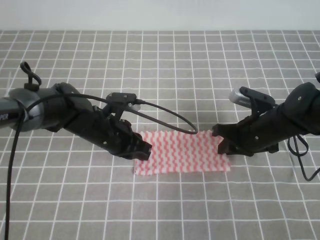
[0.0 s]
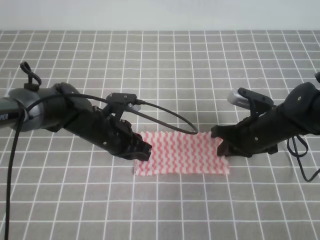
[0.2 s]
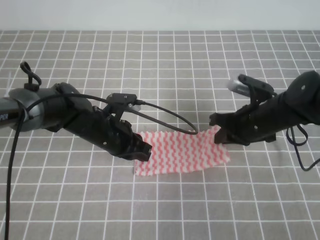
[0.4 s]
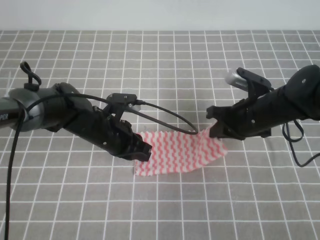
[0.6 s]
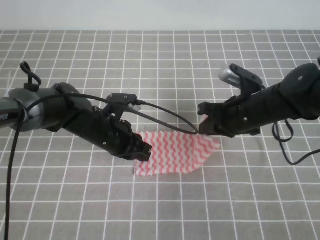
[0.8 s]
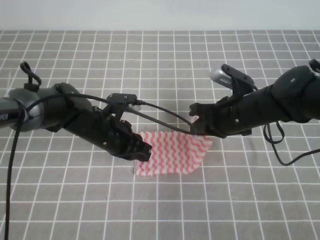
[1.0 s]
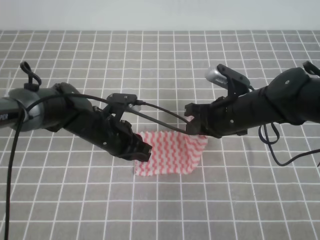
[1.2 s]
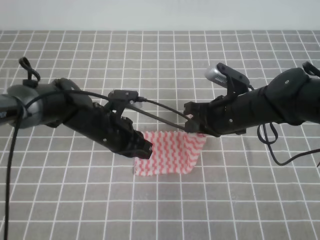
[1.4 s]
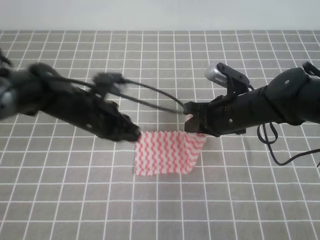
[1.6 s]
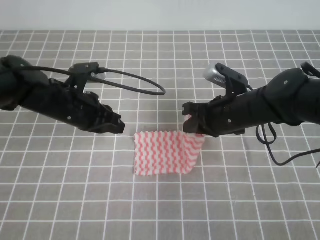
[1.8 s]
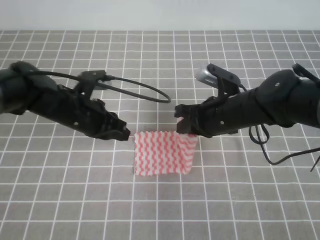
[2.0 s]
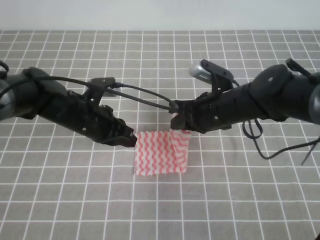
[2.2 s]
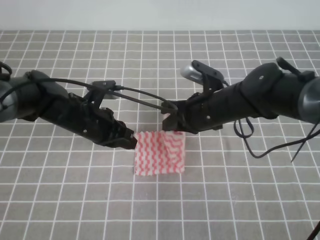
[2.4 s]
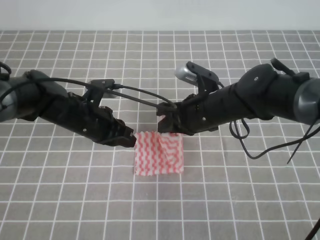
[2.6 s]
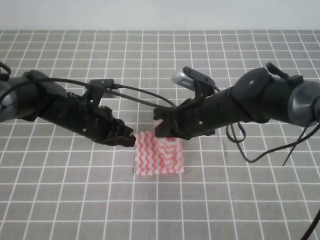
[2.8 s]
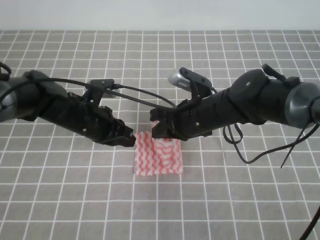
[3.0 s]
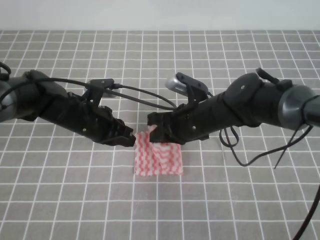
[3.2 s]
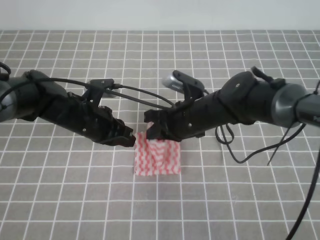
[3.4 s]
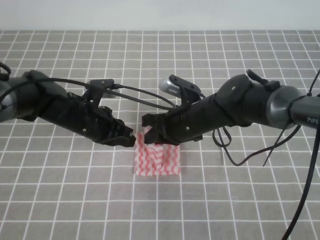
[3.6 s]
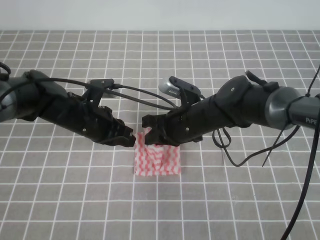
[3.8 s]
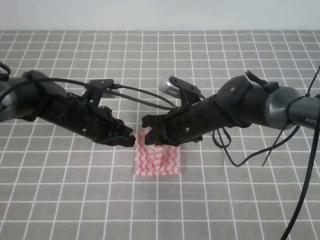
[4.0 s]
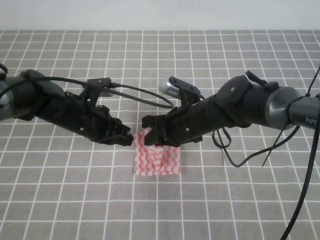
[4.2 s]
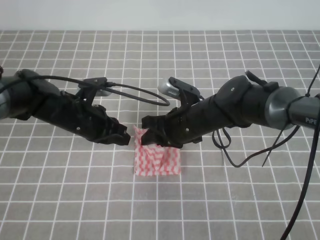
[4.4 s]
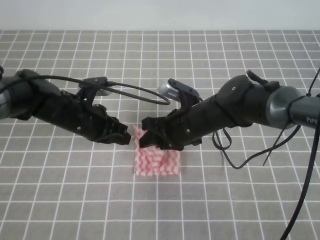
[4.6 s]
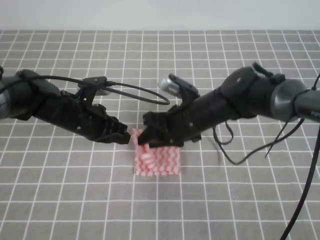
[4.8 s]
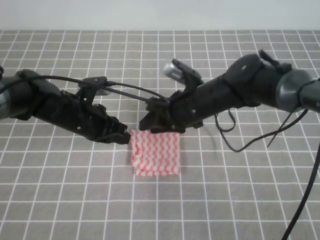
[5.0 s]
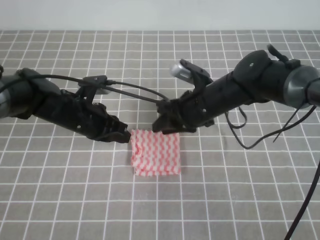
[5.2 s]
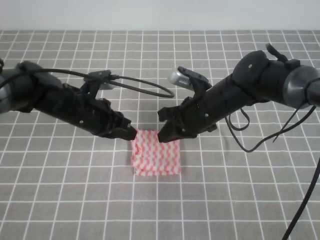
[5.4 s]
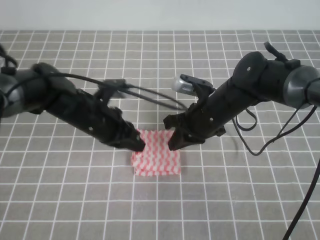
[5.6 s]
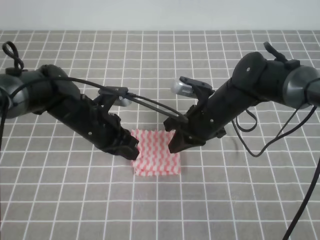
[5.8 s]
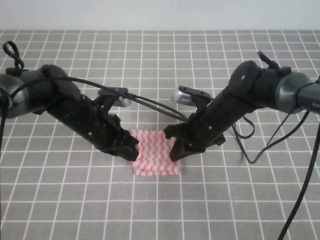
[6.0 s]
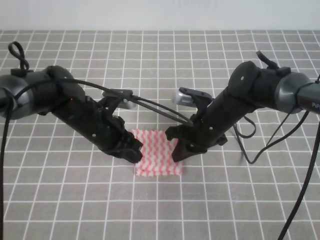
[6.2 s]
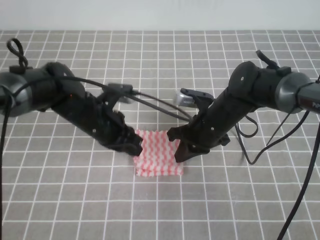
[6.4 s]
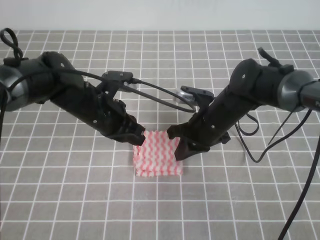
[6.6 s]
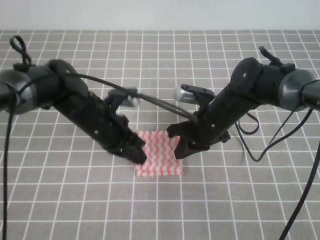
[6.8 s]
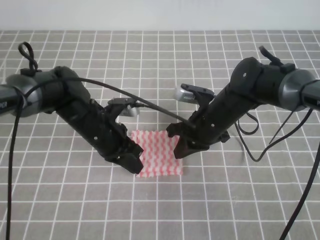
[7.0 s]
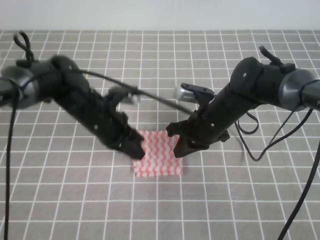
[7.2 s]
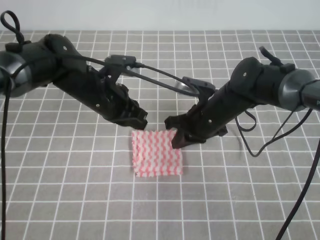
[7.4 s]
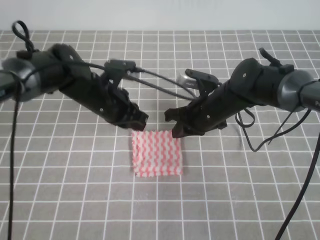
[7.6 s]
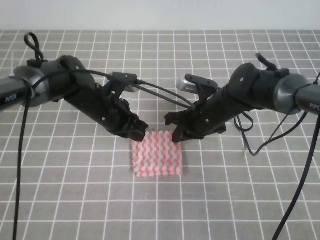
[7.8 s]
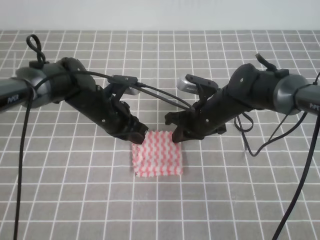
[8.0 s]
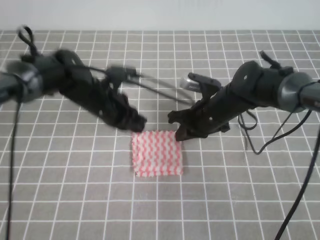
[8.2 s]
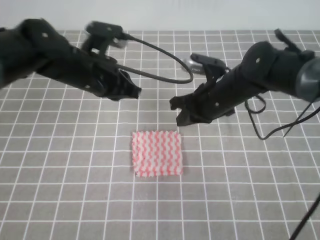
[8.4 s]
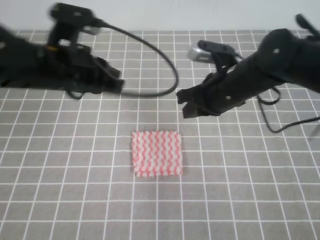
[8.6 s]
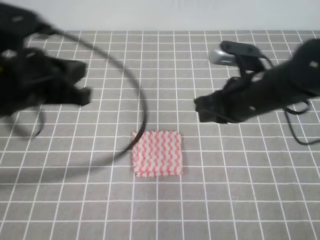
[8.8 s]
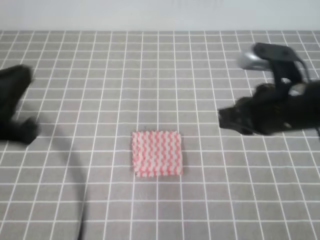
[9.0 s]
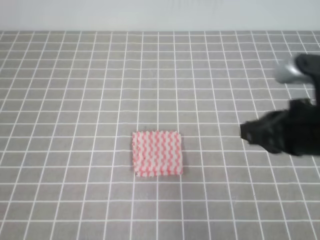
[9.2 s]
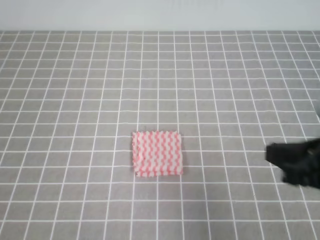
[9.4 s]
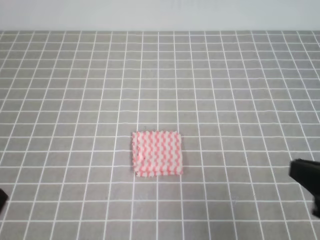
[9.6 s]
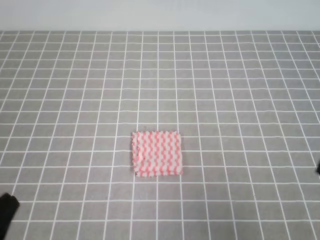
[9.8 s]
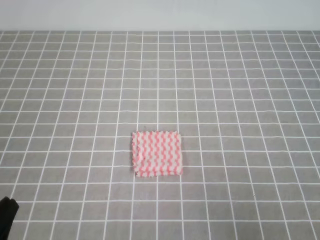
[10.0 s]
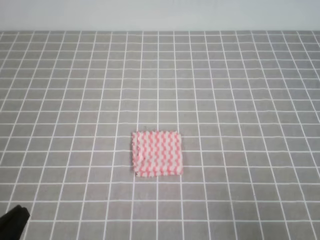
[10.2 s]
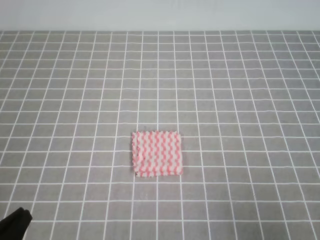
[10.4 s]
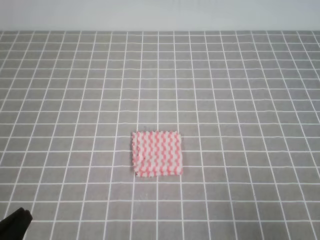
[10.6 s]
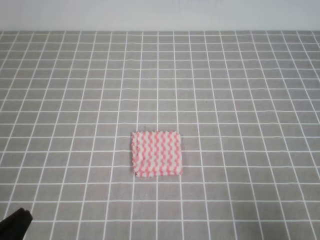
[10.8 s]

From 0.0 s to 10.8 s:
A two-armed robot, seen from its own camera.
From 0.0 s to 1.6 s: The right gripper moves roughly 5 cm.
From 1.6 s to 3.0 s: The right gripper heads to the left, covering approximately 5 cm.
From 3.0 s to 4.6 s: The right gripper opens.
From 4.6 s to 6.2 s: The right gripper closes.
From 7.8 s to 9.2 s: The right gripper heads backward, upward and to the right, covering some 25 cm. The left gripper is displaced backward, upward and to the left by about 35 cm.
From 9.2 s to 10.8 s: The right gripper heads backward, to the right and downward, covering about 20 cm. Meanwhile the left gripper goes roughly 15 cm downward.

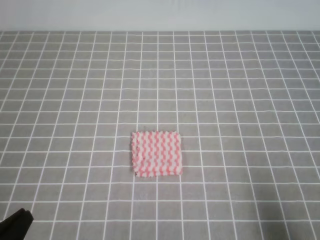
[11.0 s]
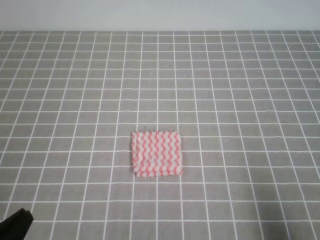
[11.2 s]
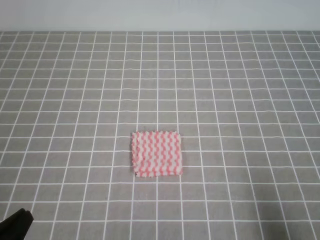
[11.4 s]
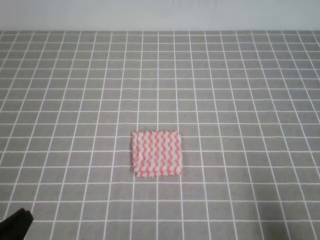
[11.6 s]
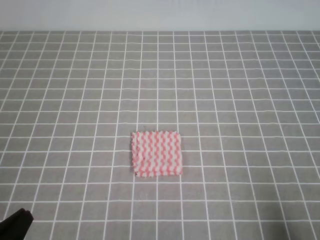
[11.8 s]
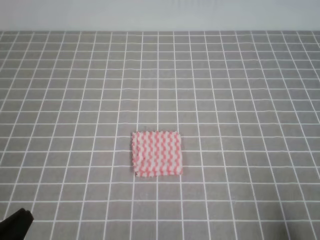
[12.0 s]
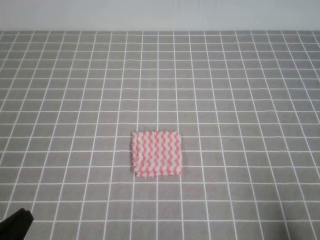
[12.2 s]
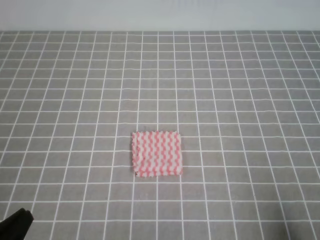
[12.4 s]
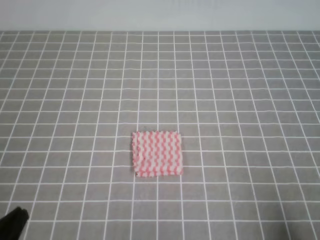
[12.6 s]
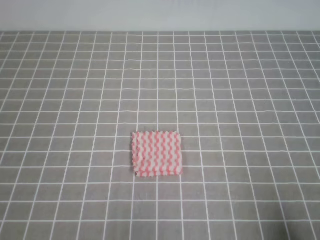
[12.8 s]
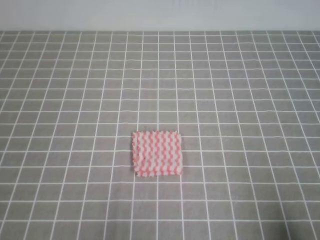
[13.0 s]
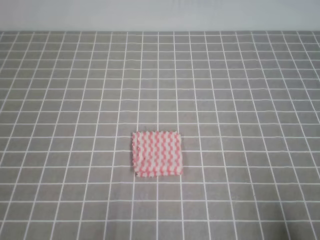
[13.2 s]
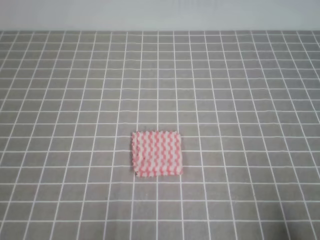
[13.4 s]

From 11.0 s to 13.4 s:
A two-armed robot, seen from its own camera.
From 12.2 s to 13.4 s: The grippers move only a little.
